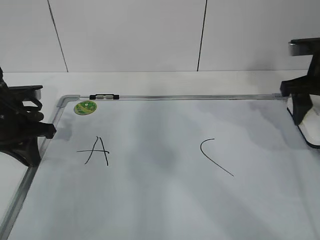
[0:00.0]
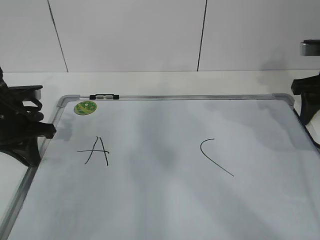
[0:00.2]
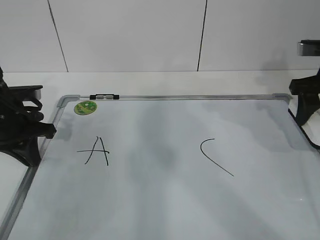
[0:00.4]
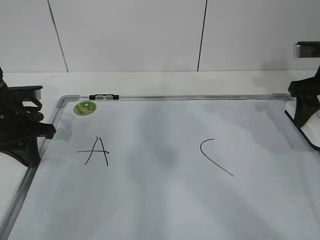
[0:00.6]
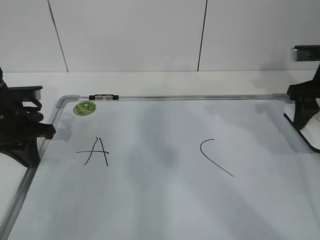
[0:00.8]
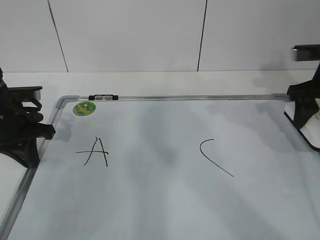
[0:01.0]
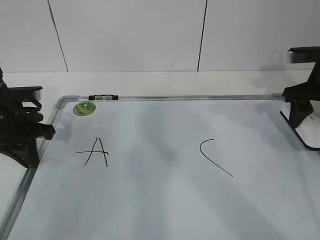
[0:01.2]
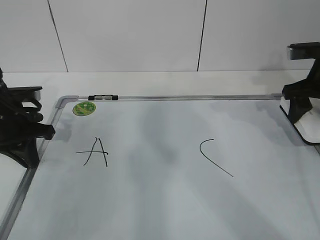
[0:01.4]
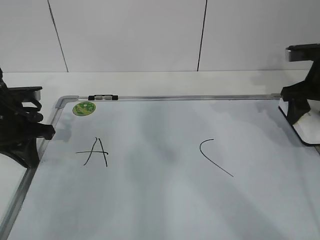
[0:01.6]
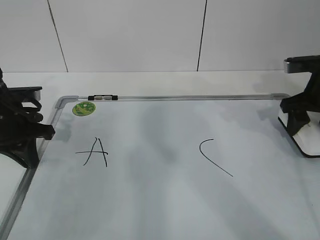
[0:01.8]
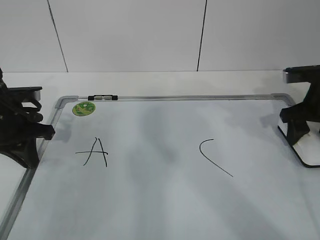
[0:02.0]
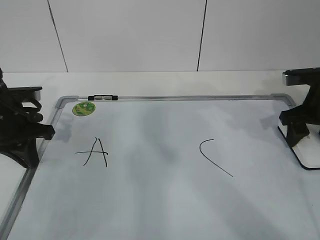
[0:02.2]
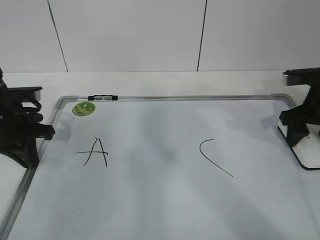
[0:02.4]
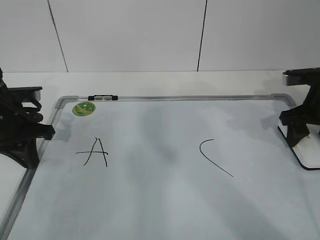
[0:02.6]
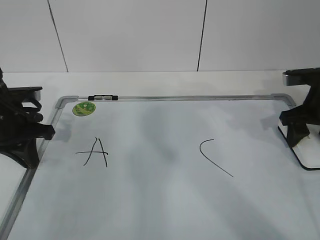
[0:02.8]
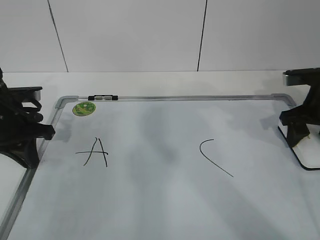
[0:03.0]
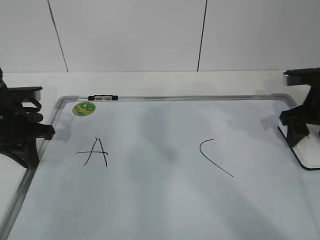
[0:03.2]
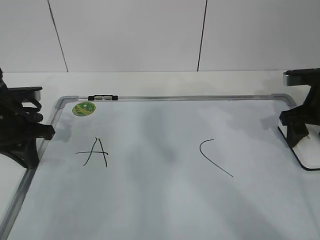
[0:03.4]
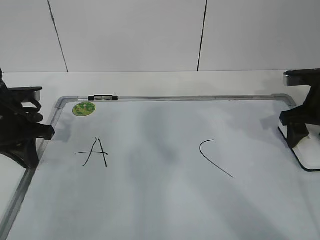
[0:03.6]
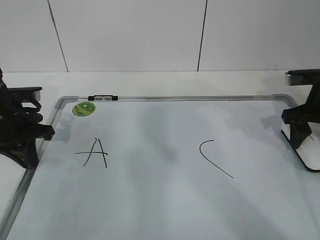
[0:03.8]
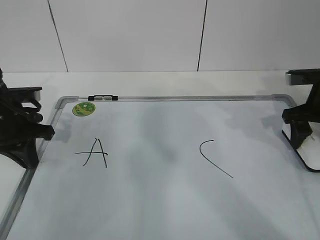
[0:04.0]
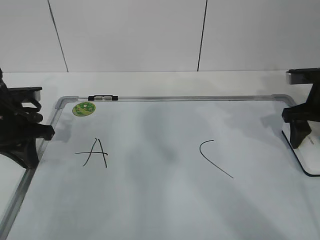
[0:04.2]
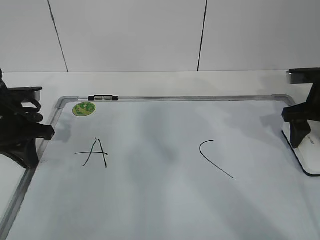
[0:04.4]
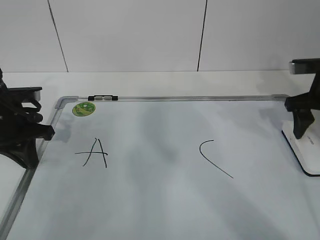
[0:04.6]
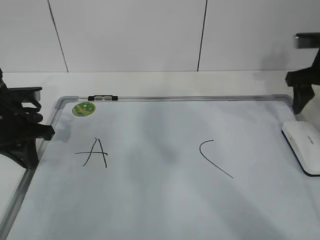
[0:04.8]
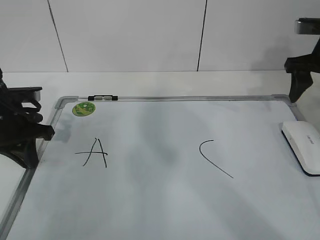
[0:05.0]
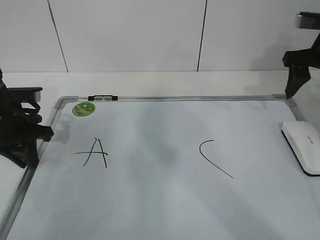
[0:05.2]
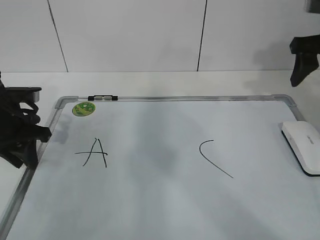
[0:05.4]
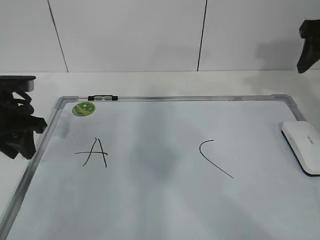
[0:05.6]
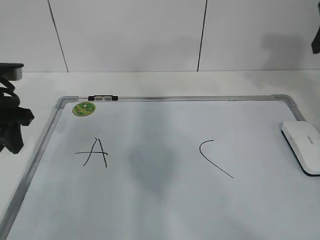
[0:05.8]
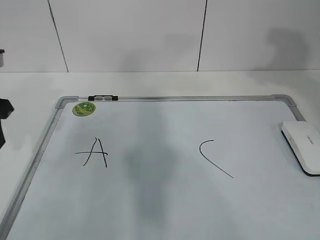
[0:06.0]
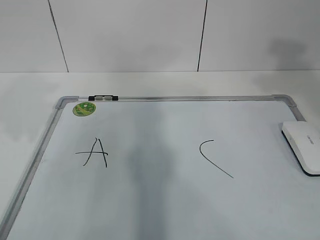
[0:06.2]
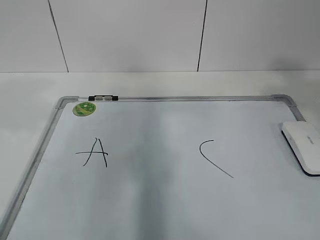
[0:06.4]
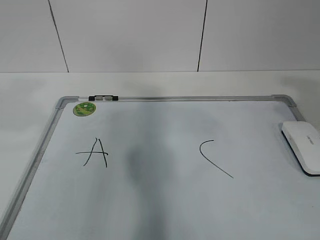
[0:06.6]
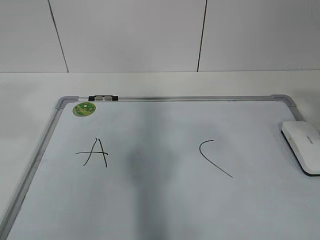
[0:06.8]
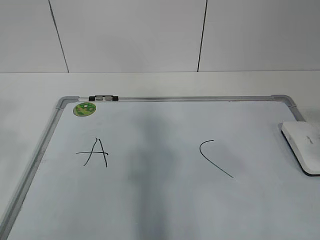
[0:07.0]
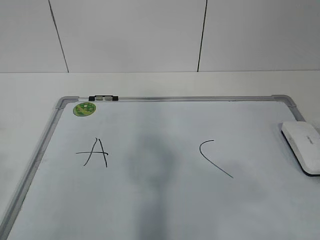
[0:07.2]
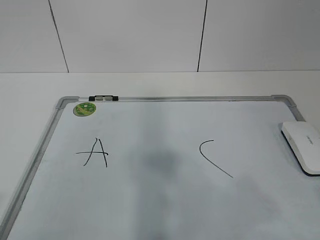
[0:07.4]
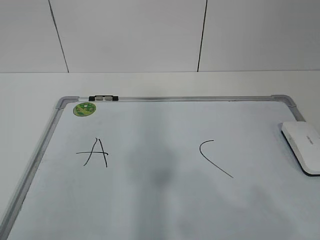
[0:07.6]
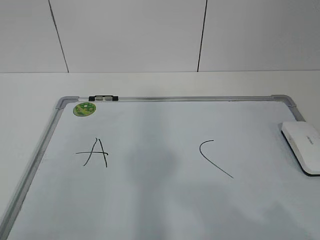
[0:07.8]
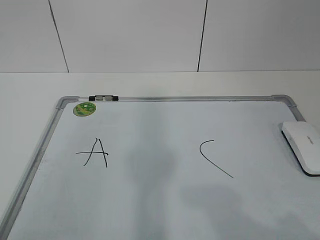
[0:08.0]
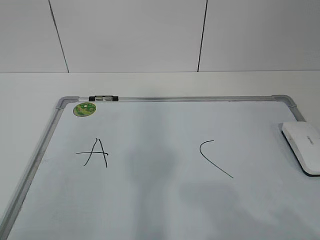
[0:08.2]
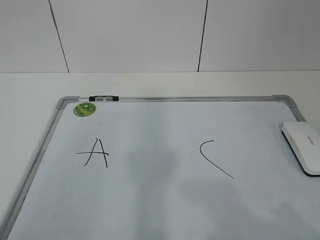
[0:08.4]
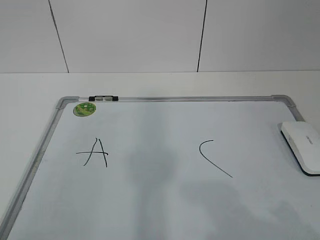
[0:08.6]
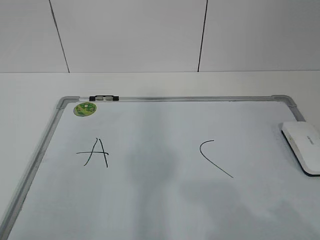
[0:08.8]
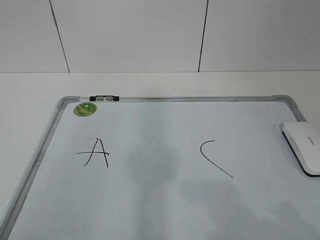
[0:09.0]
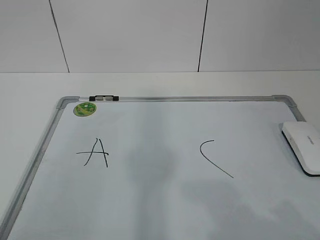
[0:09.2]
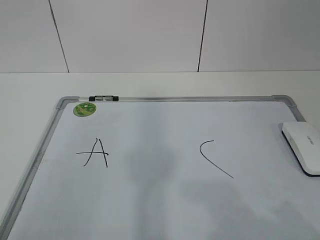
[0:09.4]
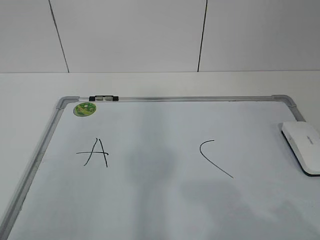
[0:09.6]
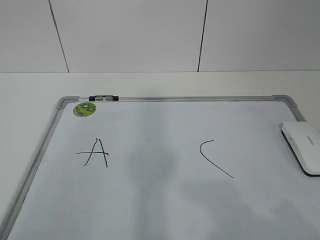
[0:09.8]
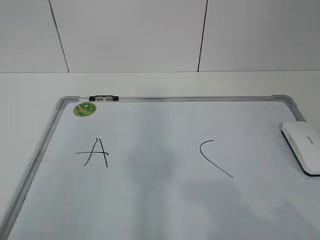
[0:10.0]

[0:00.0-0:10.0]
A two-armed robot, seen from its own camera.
Task of the whole recording: pick up the eraser on the blackboard and erase the letter "B".
0:00.0 to 0:01.4: The grippers move only a little.
0:01.4 to 0:02.8: The grippers make only small movements.
0:02.8 to 0:04.2: The right gripper opens its fingers.
0:04.2 to 0:05.8: The left gripper travels upward by roughly 5 cm, and opens; the right gripper moves upward, roughly 15 cm.
0:05.8 to 0:07.2: The left gripper travels backward and upward by about 35 cm. Meanwhile the right gripper goes about 30 cm backward.
0:07.2 to 0:08.6: Both grippers move downward, about 10 cm.
